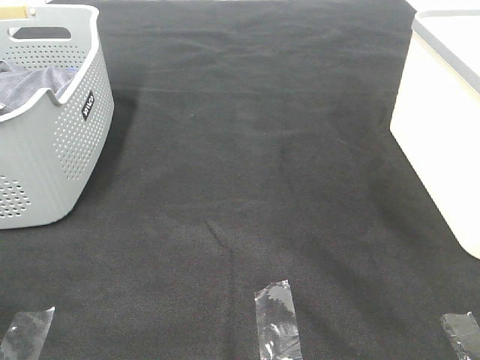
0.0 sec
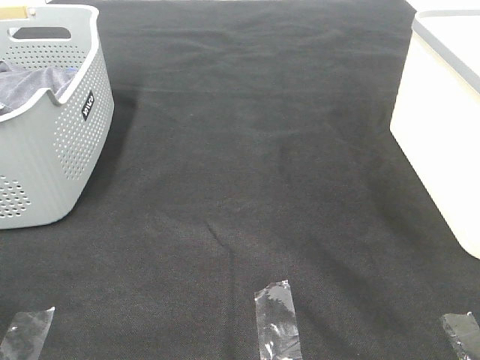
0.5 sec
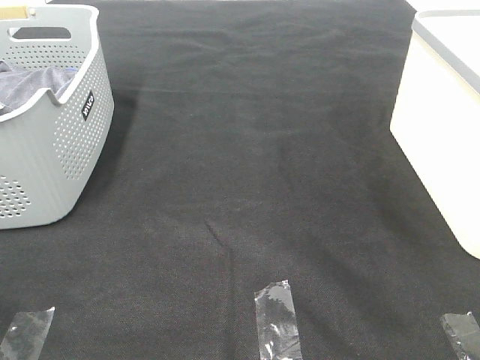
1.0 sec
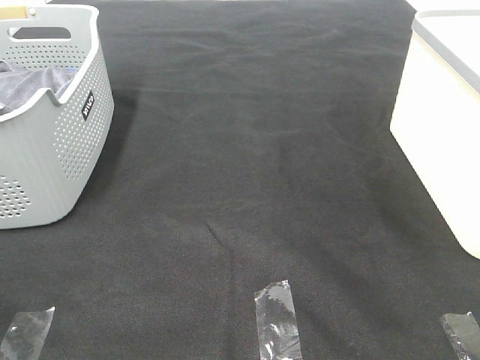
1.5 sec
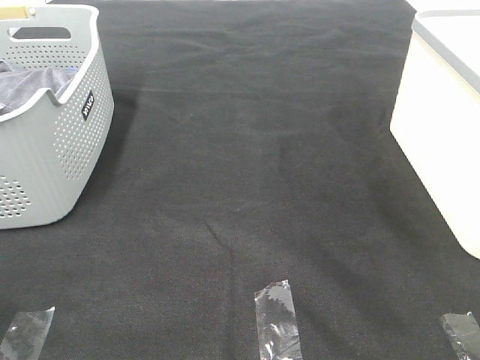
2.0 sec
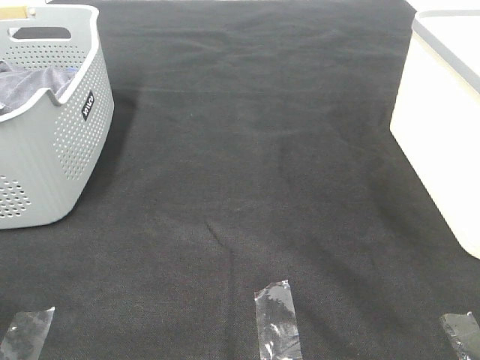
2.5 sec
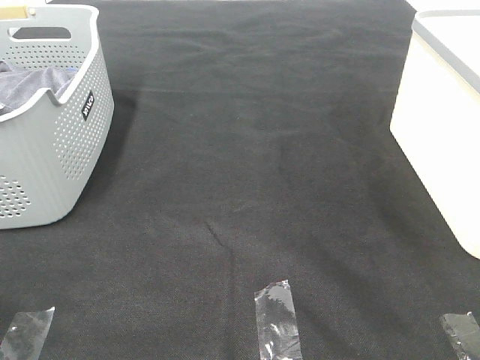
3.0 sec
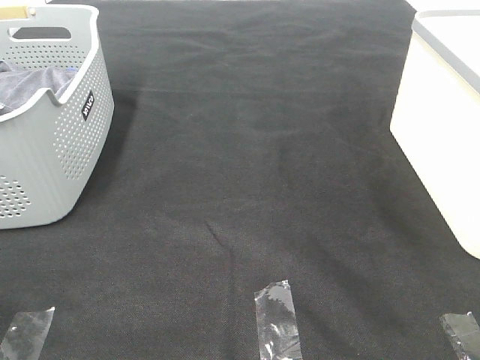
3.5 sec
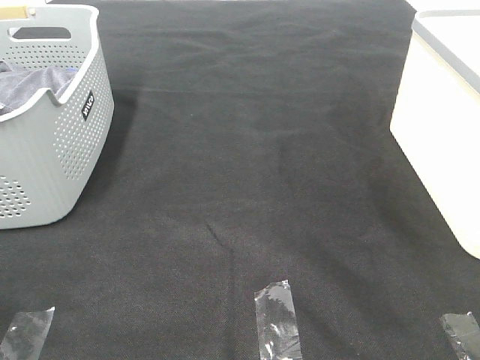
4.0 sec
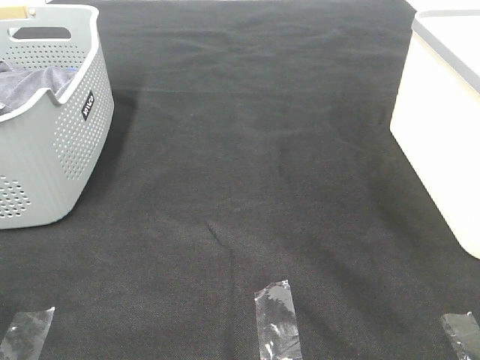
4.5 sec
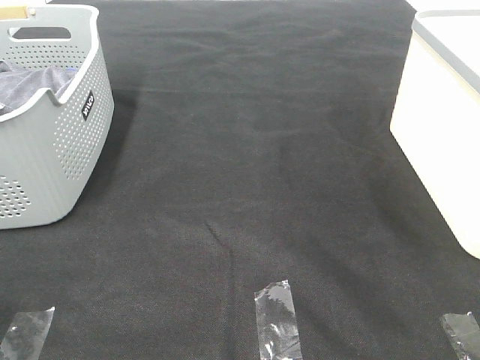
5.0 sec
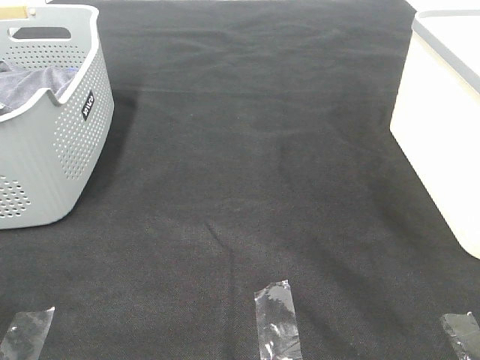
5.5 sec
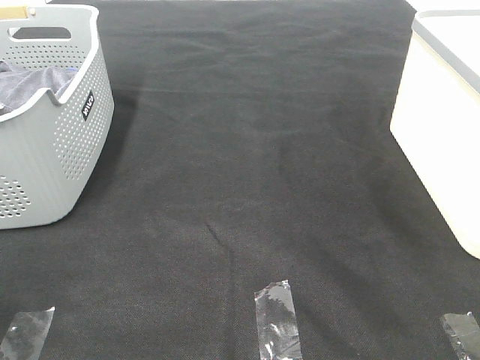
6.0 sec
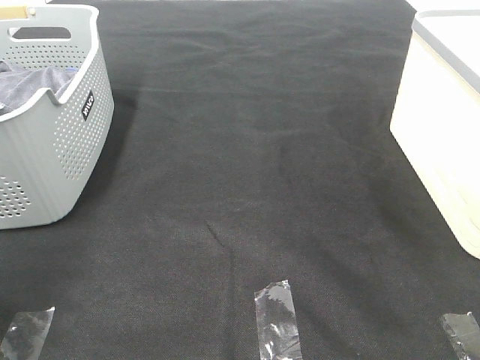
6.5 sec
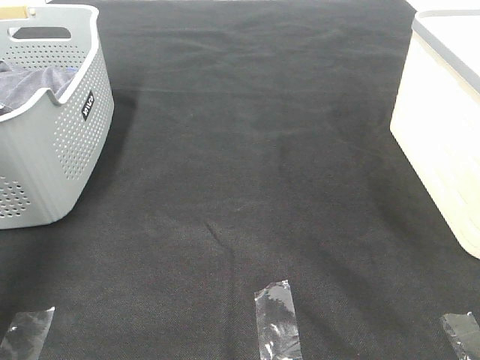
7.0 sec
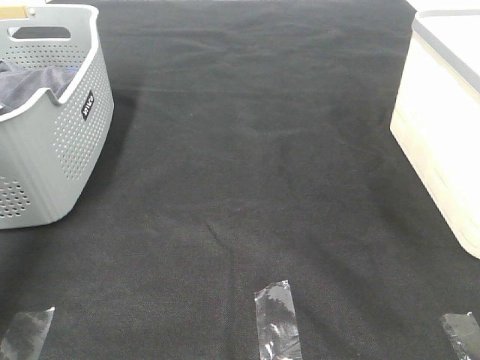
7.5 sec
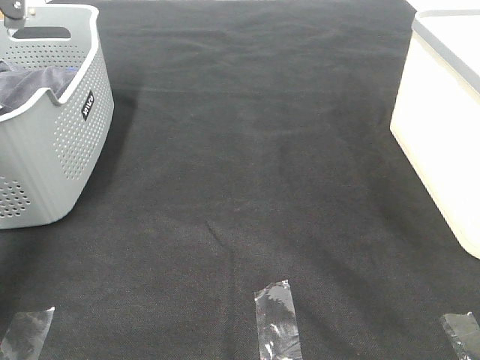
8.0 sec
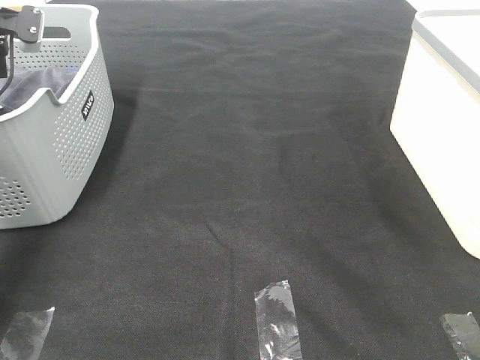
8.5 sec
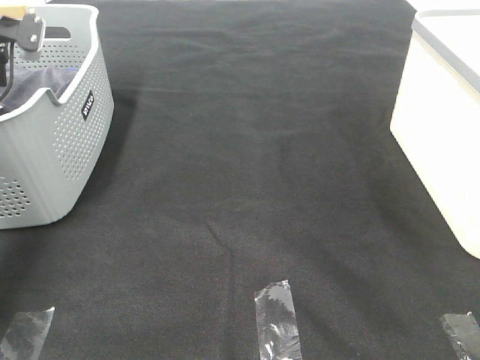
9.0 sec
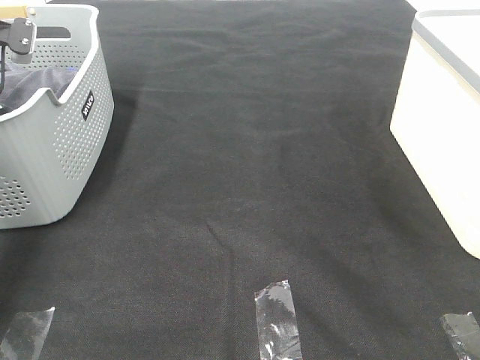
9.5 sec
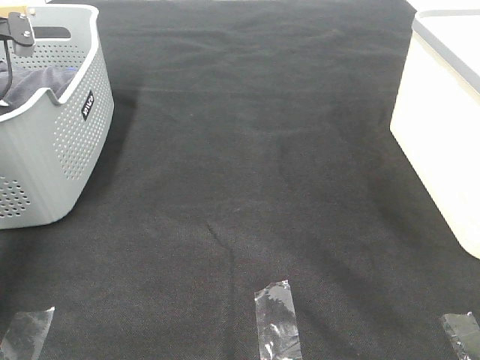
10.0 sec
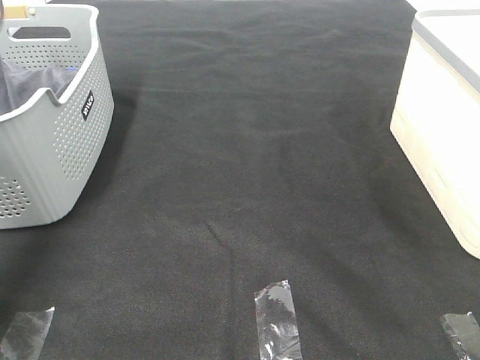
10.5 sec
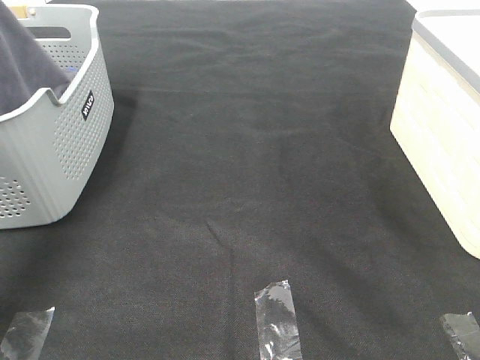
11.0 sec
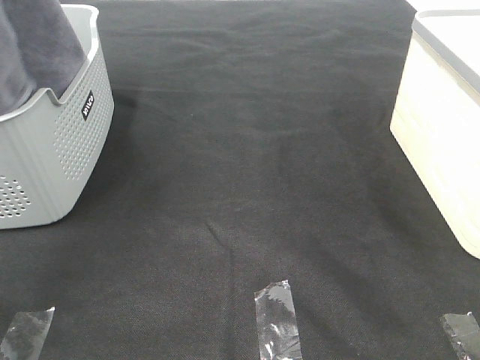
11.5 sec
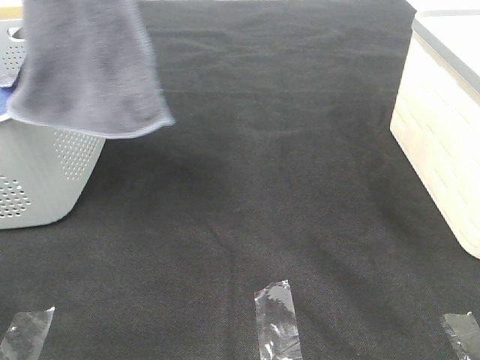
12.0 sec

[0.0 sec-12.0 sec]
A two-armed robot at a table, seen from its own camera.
Task of the whole recording: Remove the towel and place it.
0.0 sec to 4.0 sec: Neither gripper changes place.
6.0 sec to 8.0 sec: The left gripper is displaced forward by approximately 50 cm.
8.0 sec to 10.0 sec: The left gripper closes.
10.0 sec to 12.0 sec: The left gripper shifts about 40 cm upward, backward and to the right.

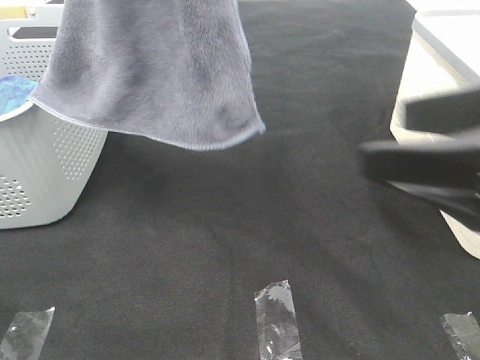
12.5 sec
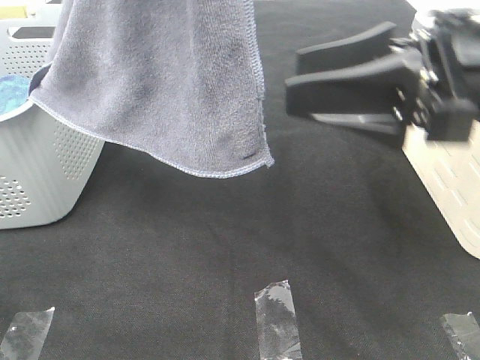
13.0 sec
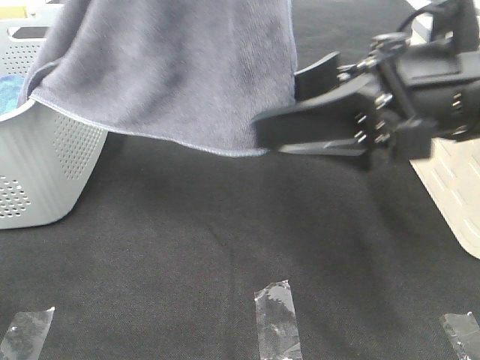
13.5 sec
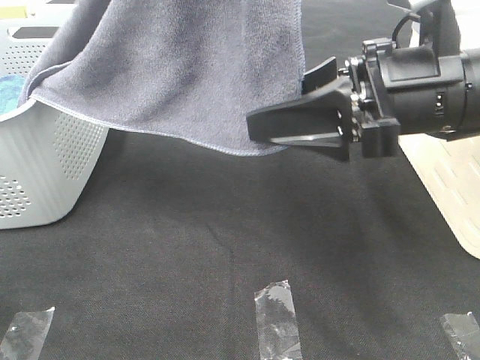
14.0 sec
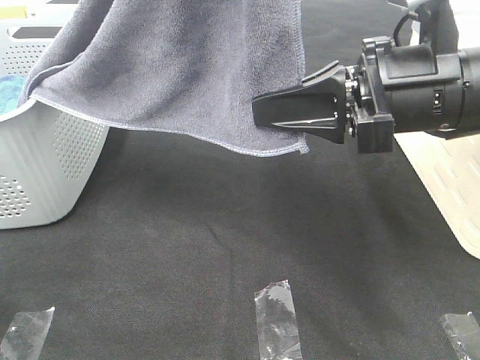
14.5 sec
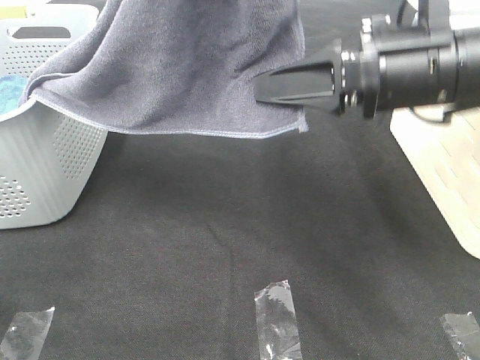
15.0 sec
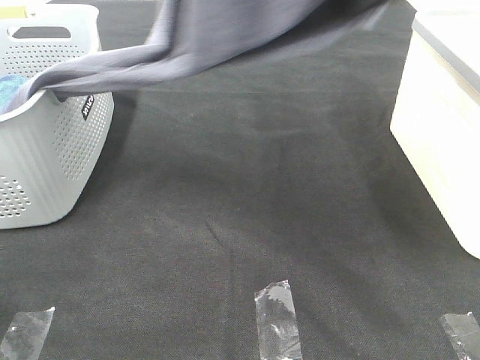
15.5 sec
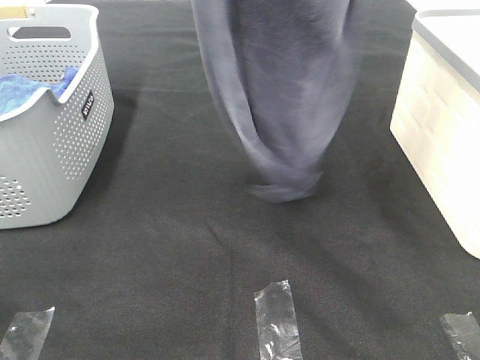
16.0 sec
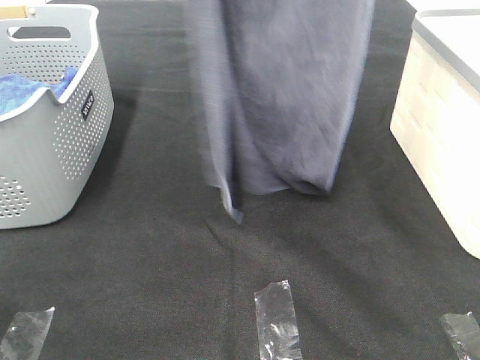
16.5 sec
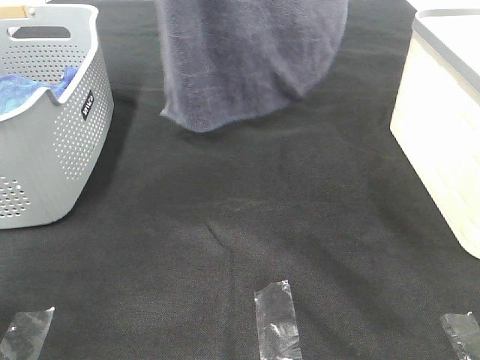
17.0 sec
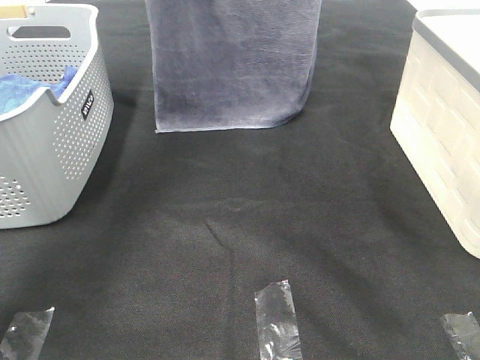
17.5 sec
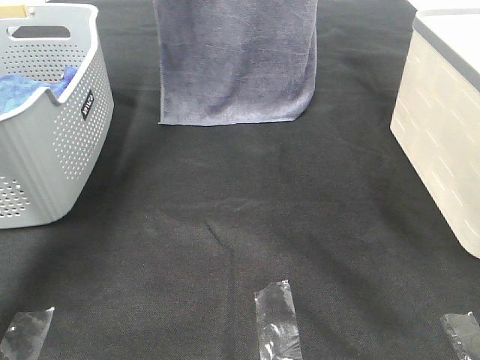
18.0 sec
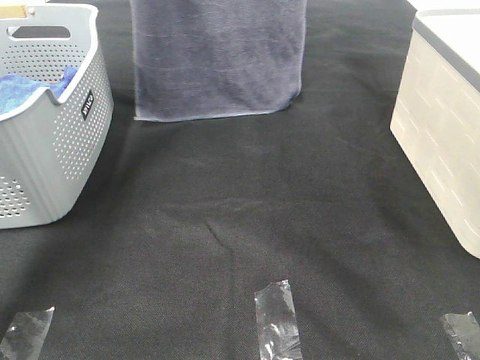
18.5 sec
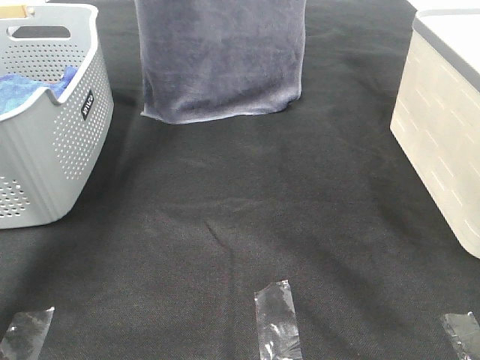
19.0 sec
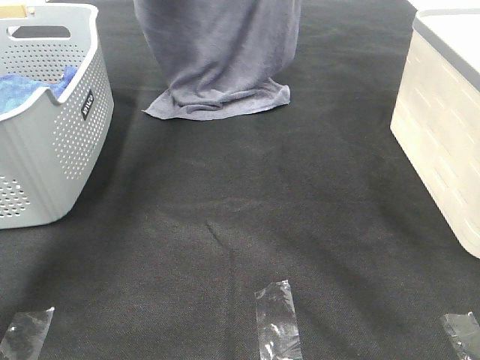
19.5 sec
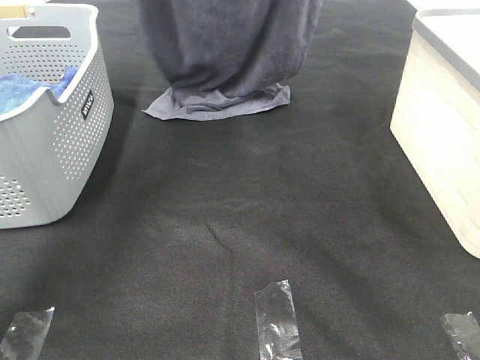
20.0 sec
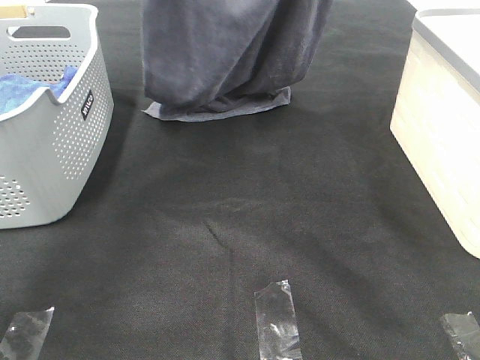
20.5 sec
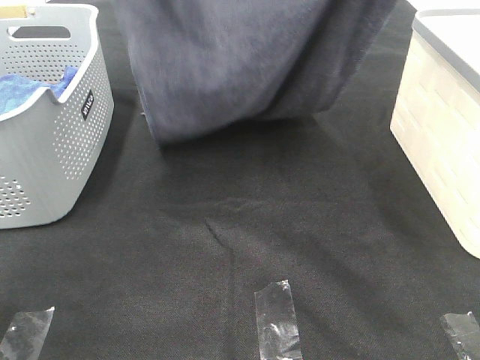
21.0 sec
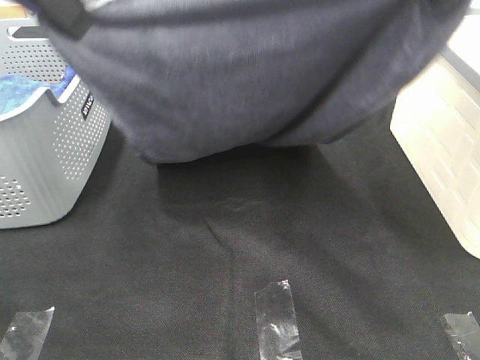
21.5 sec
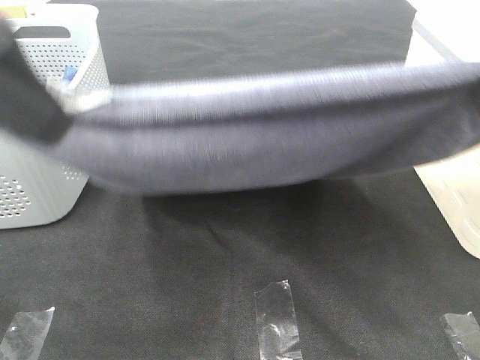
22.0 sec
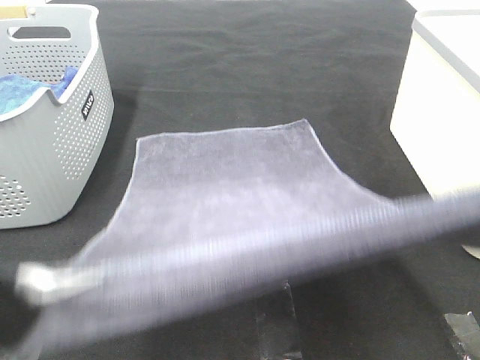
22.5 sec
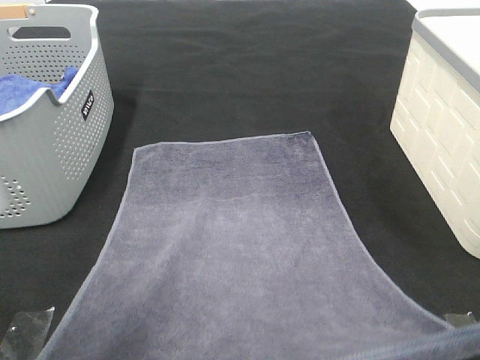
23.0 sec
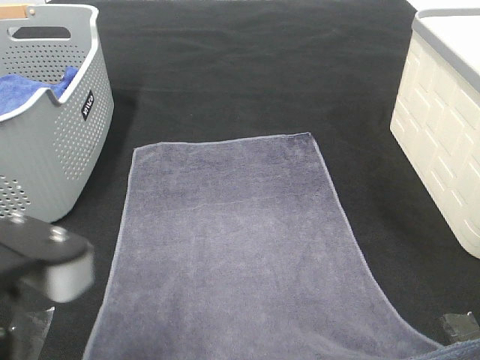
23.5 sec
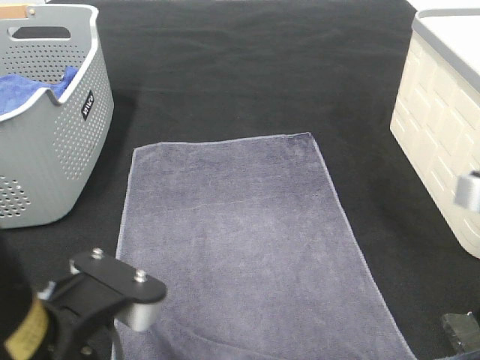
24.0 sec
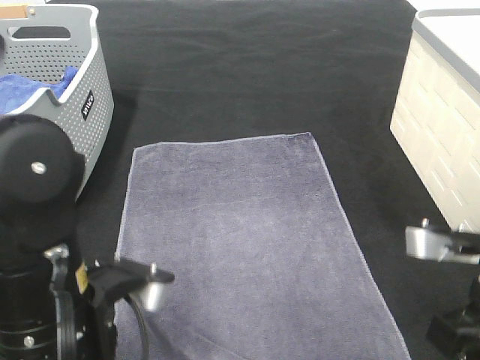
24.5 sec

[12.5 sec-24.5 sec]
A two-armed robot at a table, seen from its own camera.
Task of the whole recording: Remove the towel and place it.
Step, 12.5 sec to 14.5 sec: Right hand: grab a corner of the grey towel and straighten it.
Step, 15.0 sec to 20.5 sec: Left hand: spread the grey towel flat on the table.
Step, 15.0 sec to 20.5 sec: Right hand: spread the grey towel flat on the table.
12.5 sec to 14.5 sec: The right gripper goes approximately 10 cm forward and to the left, and closes.
14.5 sec to 16.5 sec: The left gripper travels forward by some 10 cm. Meanwhile the right gripper moves upward and forward, some 30 cm.
16.5 sec to 18.5 sec: The grippers both shift forward and downward by approximately 20 cm.
18.5 sec to 20.5 sec: The grippers both shift backward by about 10 cm.
20.5 sec to 22.5 sec: The two grippers go roughly 30 cm backward.
22.5 sec to 24.5 sec: Both grippers move downward, roughly 20 cm.

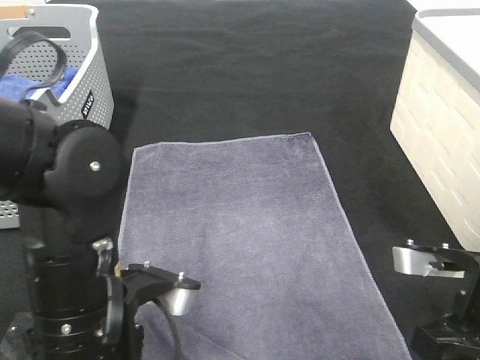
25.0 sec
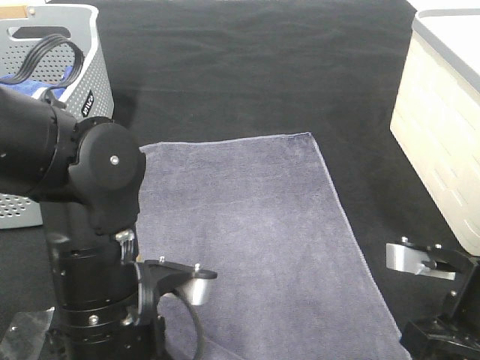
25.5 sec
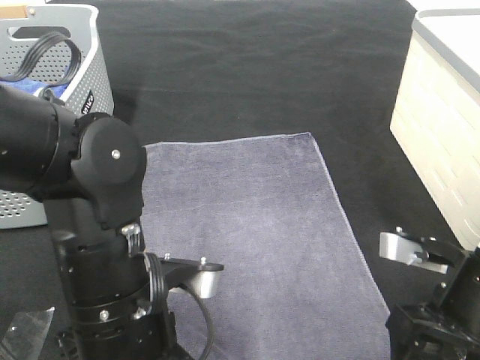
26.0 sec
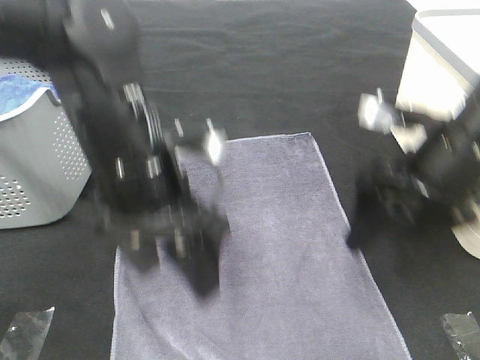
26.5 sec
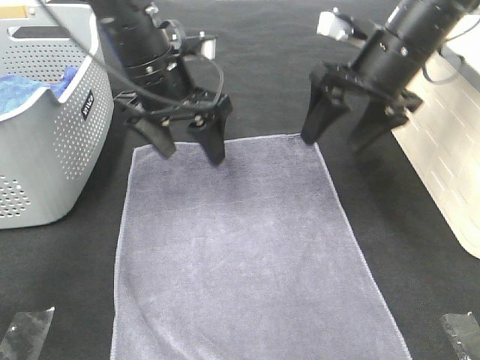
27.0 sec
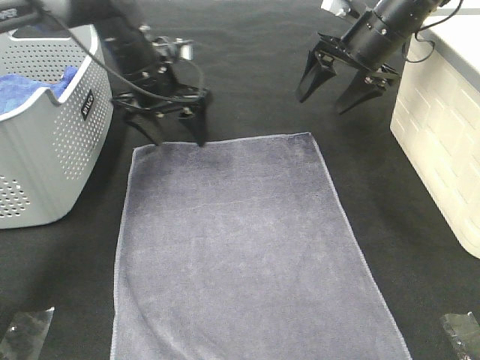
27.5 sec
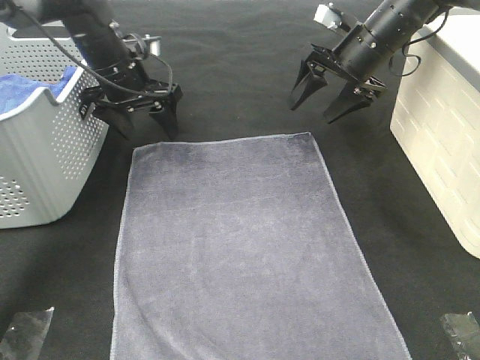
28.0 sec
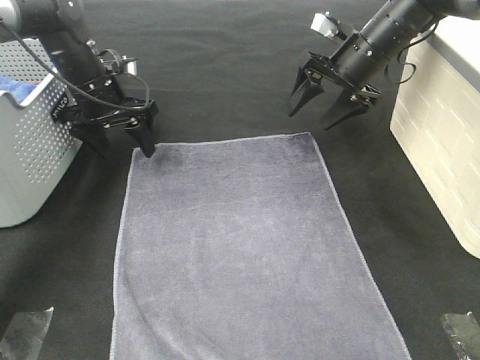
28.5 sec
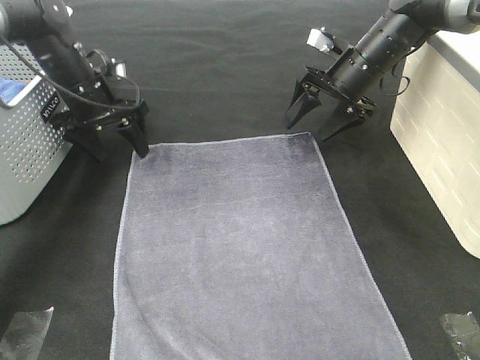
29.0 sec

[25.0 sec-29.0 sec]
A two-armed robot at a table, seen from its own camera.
Task of the whole recording: Remove the towel and place it.
Step, 25.0 sec to 28.5 sec: Left hand:adjust the gray towel.
25.0 sec to 27.0 sec: The grippers both shift forward by some 25 cm. The right gripper opens, while the left gripper opens up.
27.0 sec to 29.0 sec: The left gripper goes some 20 cm to the left, forward and downward. Meanwhile the right gripper heads forward and downward, covering roughly 15 cm.
